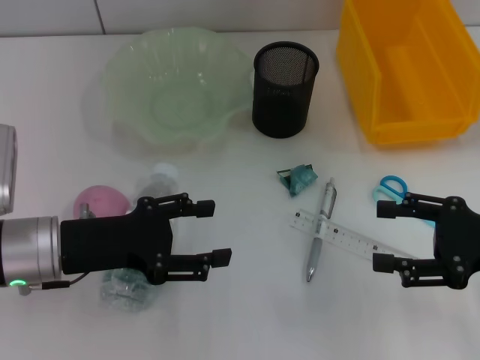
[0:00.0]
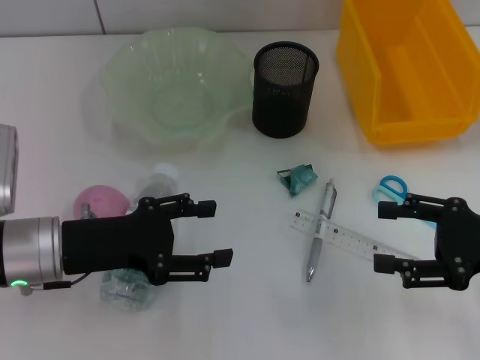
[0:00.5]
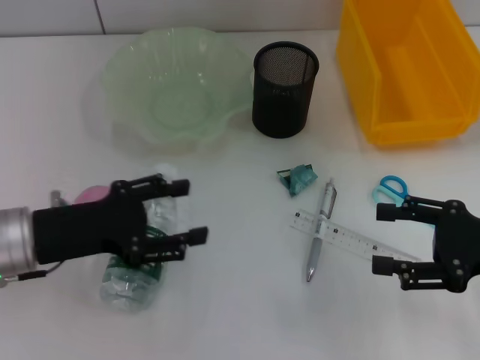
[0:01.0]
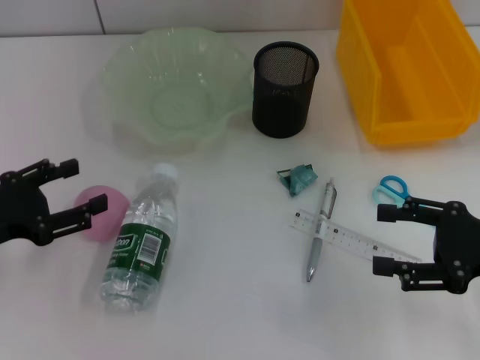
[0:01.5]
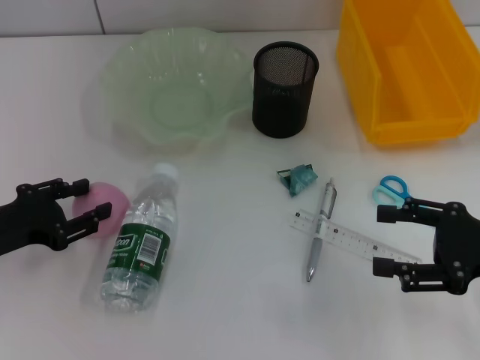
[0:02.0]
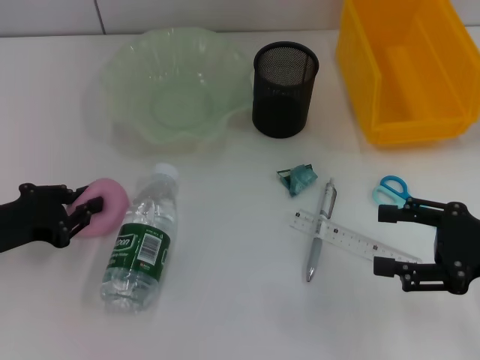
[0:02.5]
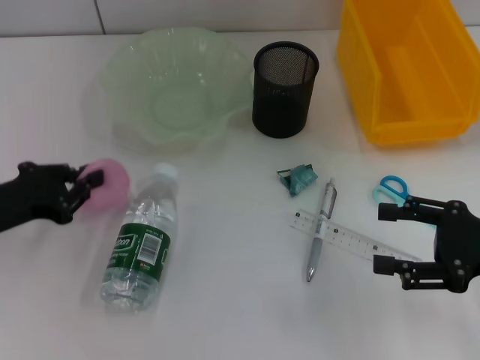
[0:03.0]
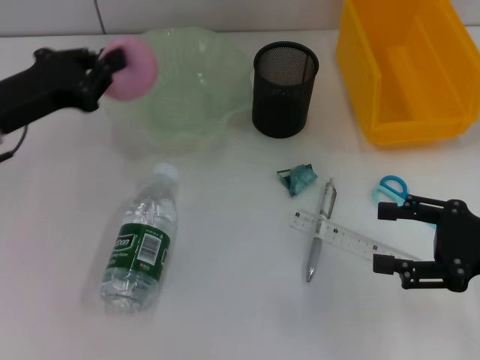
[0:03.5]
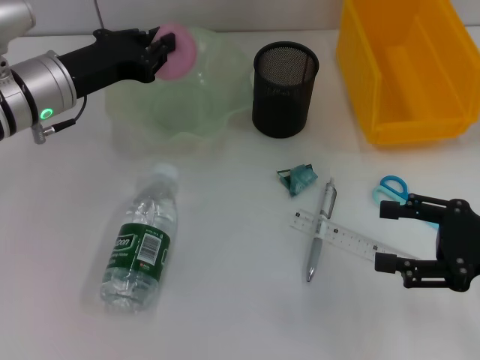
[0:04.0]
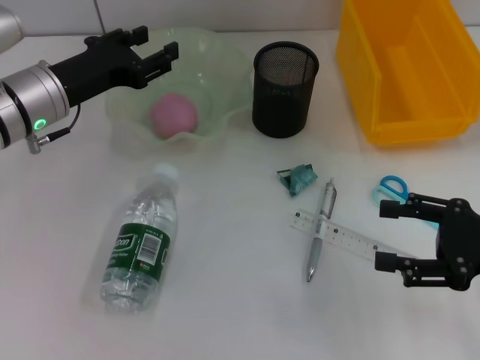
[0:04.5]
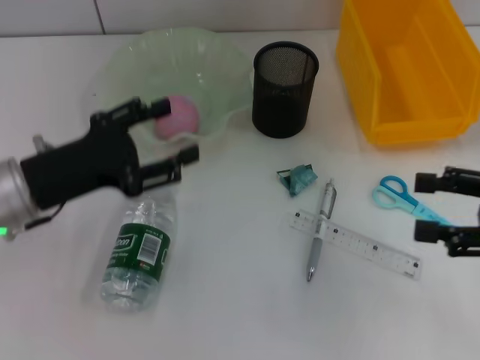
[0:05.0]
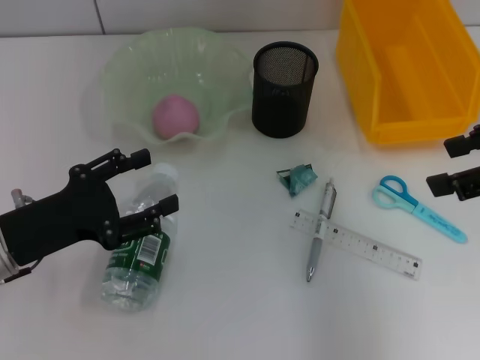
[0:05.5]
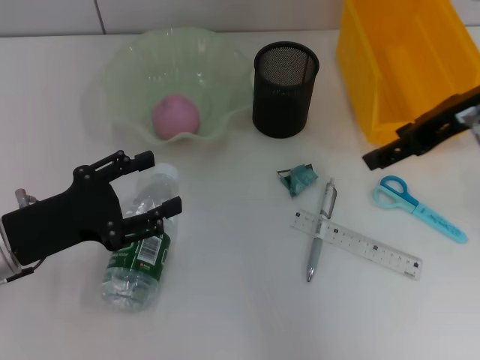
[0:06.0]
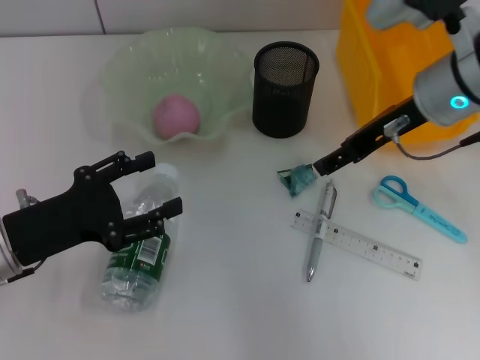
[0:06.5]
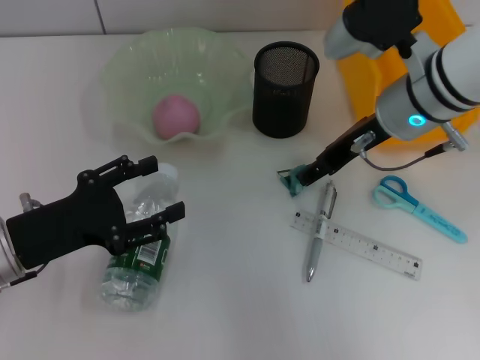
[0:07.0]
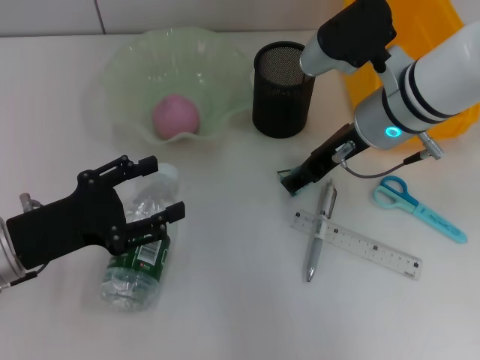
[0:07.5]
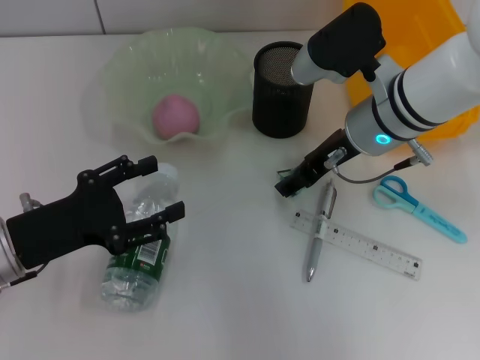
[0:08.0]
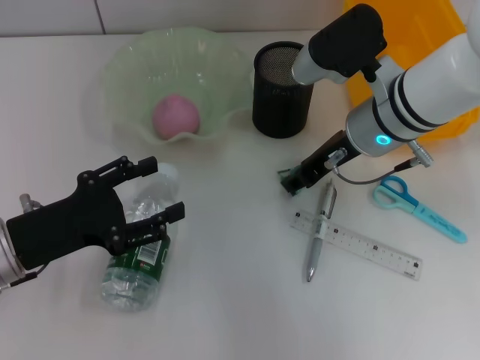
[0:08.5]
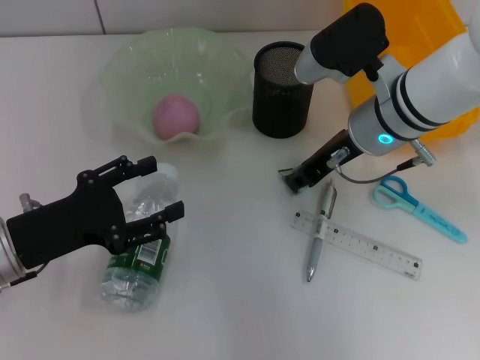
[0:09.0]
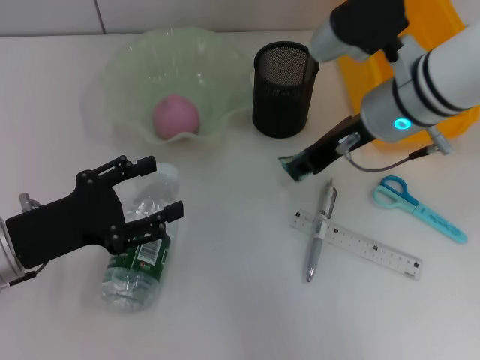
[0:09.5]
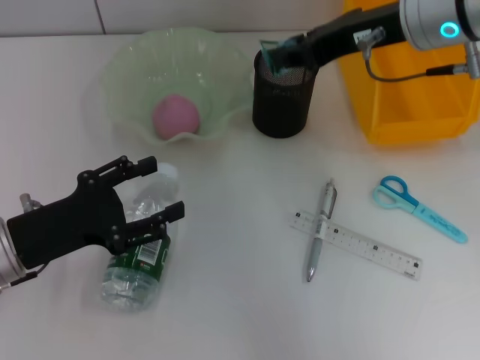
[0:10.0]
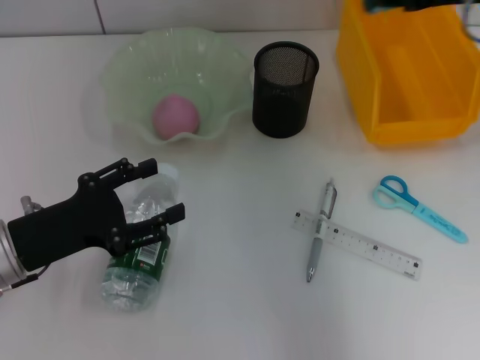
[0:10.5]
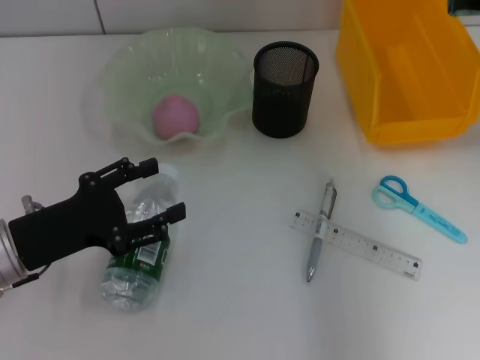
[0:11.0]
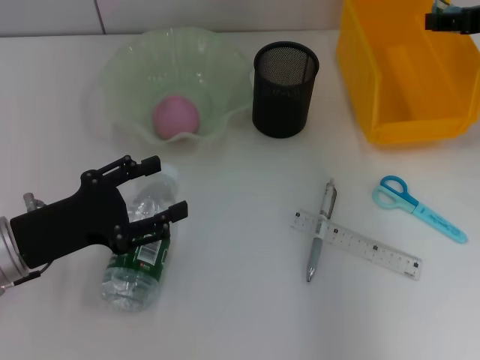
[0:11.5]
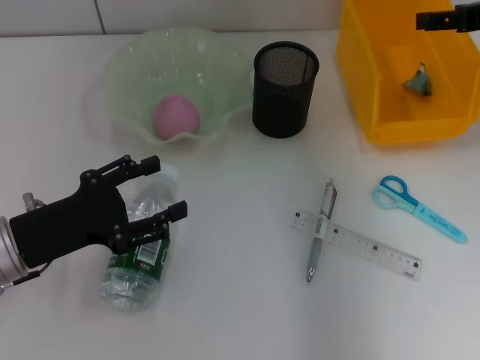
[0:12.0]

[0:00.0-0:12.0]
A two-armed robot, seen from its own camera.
Step, 0:00.0 to 0:02.5: Grab the peach with the left hand.
Step, 0:03.0 to 0:04.5: Place the peach into the fruit bowl with the left hand.
Step, 0:05.0 to 0:09.0: Grab the plastic with the right hand.
Step, 0:09.5 to 0:12.0: Place the plastic into the trash can with the right hand.
0:00.0 to 0:02.0: The left gripper goes about 10 cm to the left.
0:02.0 to 0:04.0: The left gripper moves forward, to the right and upward, approximately 15 cm, and closes its fingers.
0:04.0 to 0:06.0: The right gripper is displaced upward, forward and to the left by approximately 20 cm. Meanwhile the left gripper is displaced backward by roughly 15 cm, and opens its fingers.
0:06.0 to 0:08.0: The right gripper goes roughly 15 cm to the left and downward.
0:08.0 to 0:10.0: The right gripper moves upward, about 10 cm, and closes up.
0:10.0 to 0:12.0: The right gripper travels to the right by roughly 15 cm, and opens its fingers.

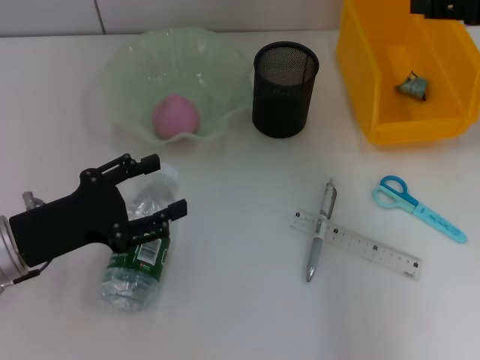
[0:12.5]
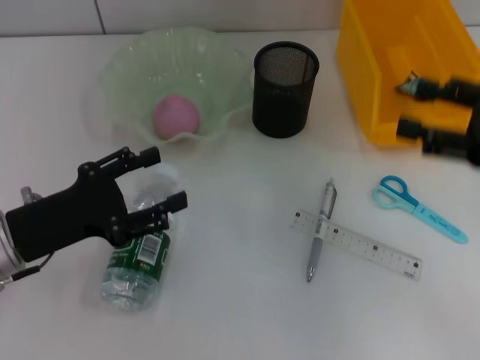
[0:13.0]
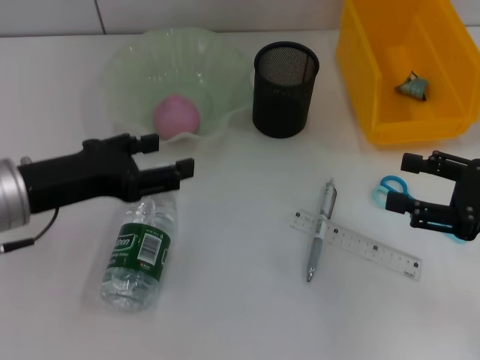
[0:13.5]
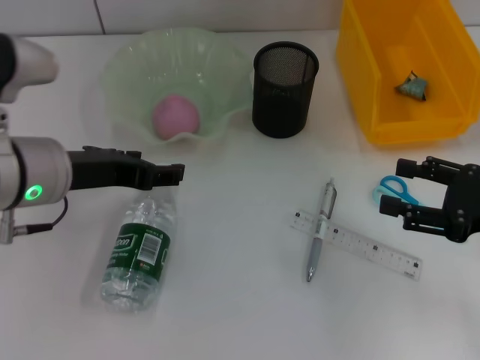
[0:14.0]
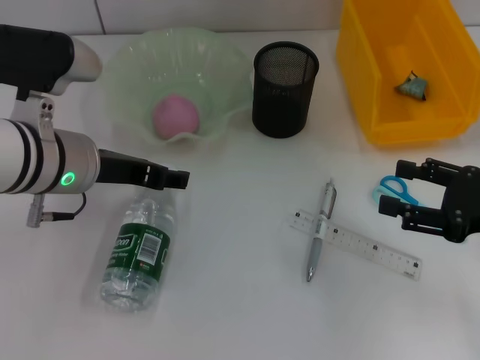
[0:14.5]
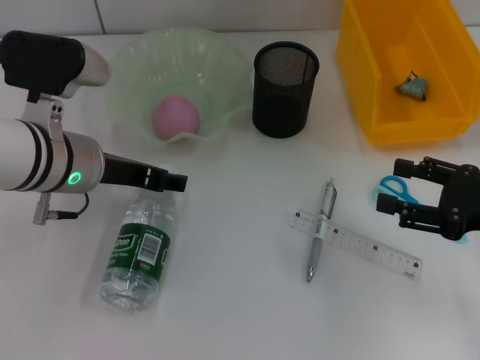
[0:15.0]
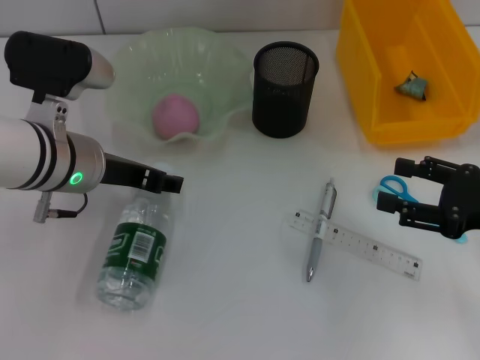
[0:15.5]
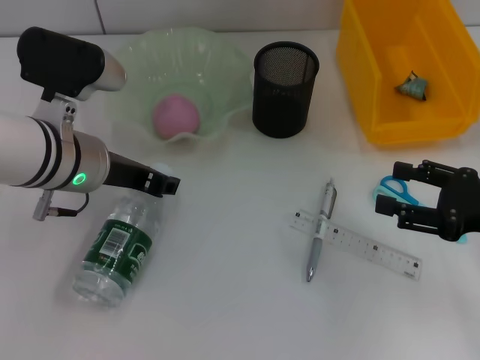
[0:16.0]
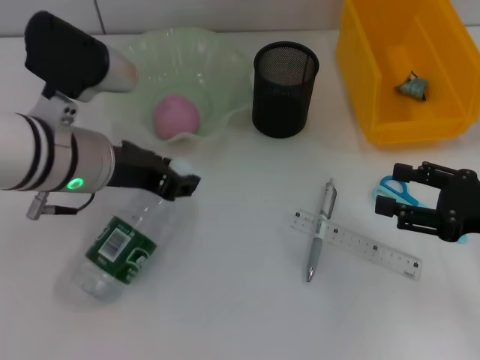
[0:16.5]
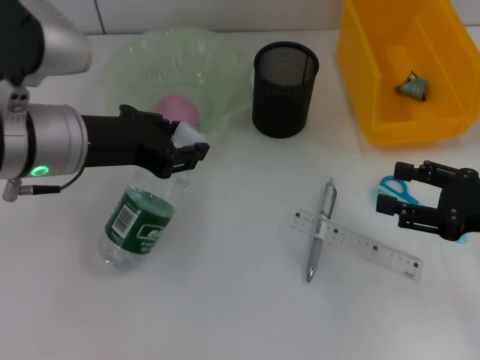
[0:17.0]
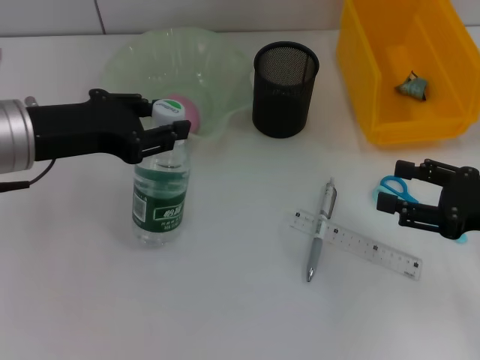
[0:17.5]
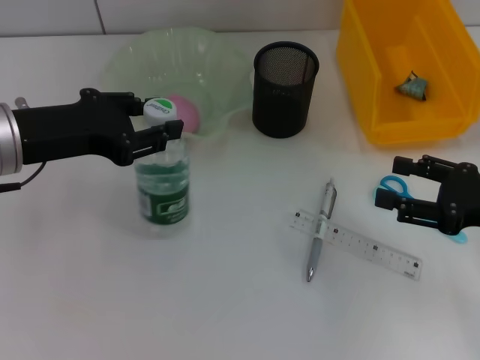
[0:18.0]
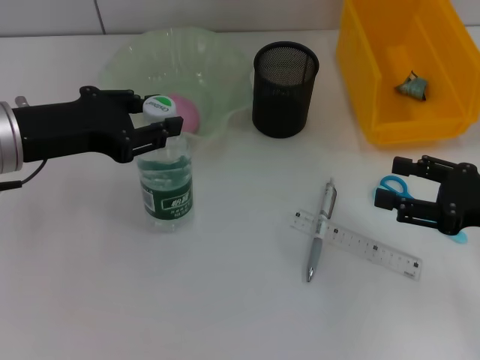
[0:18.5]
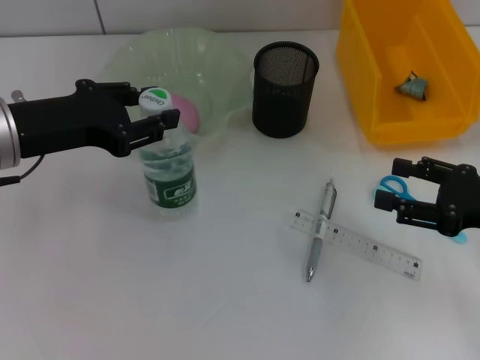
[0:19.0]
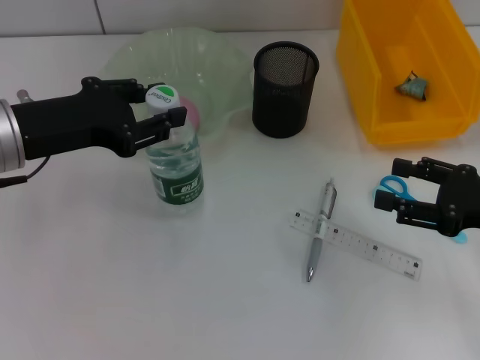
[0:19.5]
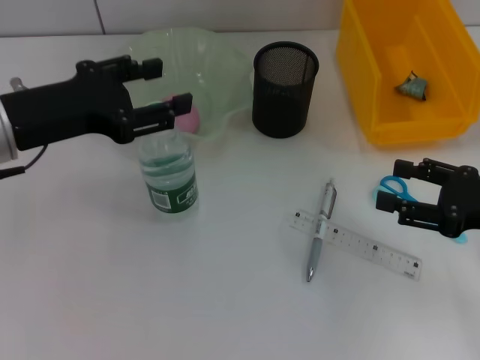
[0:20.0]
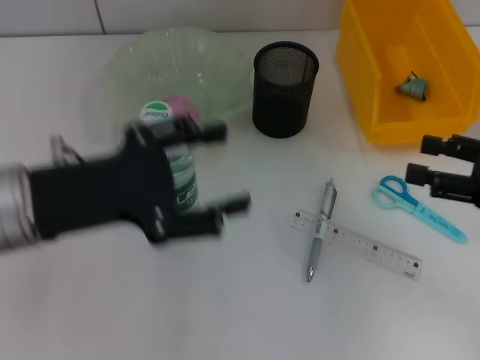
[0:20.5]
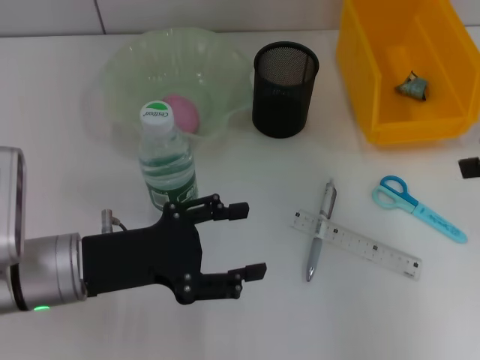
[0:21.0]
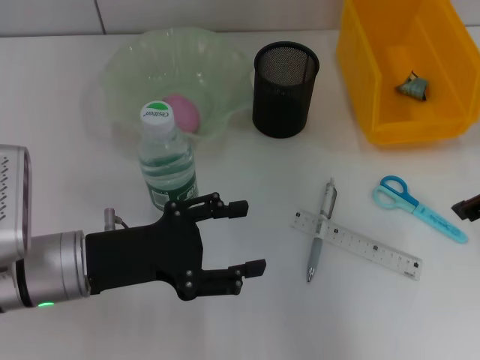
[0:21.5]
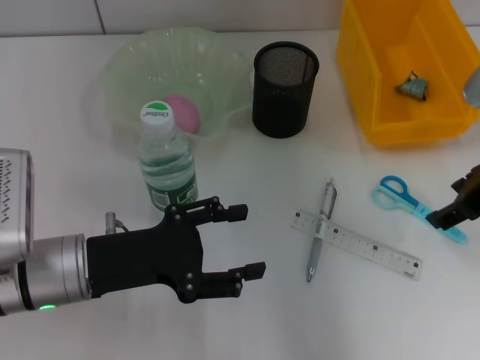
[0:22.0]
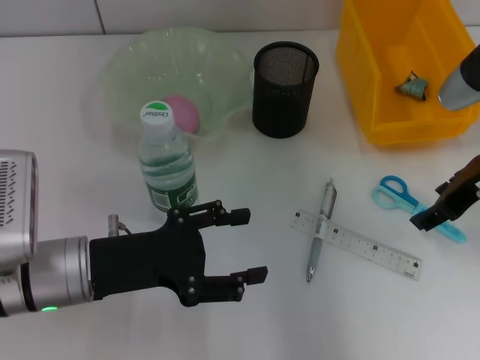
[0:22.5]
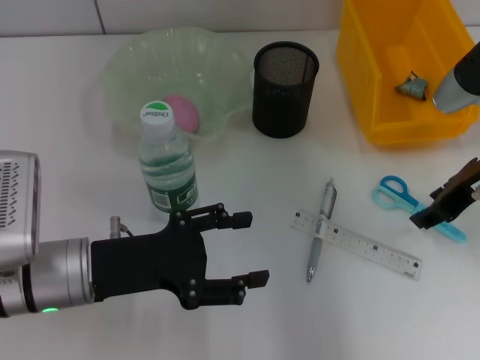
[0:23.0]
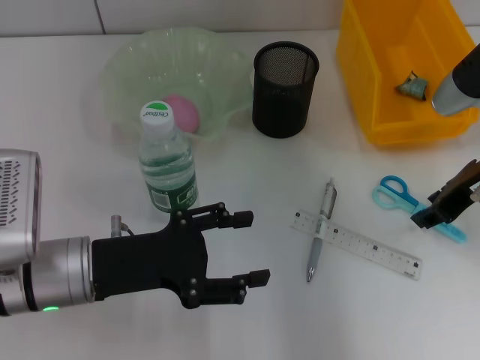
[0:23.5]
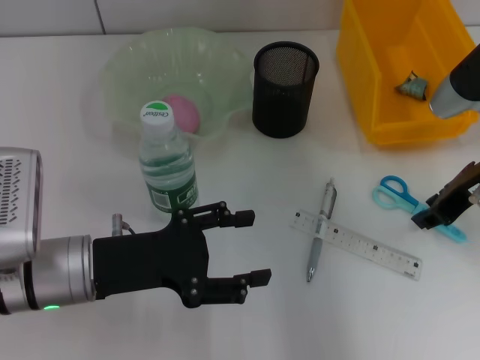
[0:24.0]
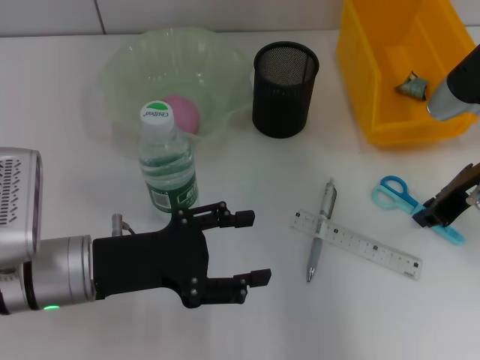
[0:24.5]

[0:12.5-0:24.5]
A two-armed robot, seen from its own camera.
Step, 0:12.5 to 0:15.5: Grab the water bottle with the left hand.
Step, 0:16.0 to 0:19.5: Place the water bottle on the table with the left hand.
0:12.5 to 0:14.5: The left gripper goes about 15 cm to the right, forward and upward; the right gripper is displaced downward and backward by some 20 cm.
0:14.5 to 0:16.5: The left gripper closes its fingers.
0:16.5 to 0:18.5: The left gripper shifts some 5 cm to the left.
0:18.5 to 0:20.5: The left gripper shifts some 5 cm backward, and opens.
0:20.5 to 0:22.5: The left gripper travels downward by roughly 10 cm. The right gripper heads to the left and forward, covering some 10 cm, and goes upward and returns, approximately 10 cm each way.
0:22.5 to 0:24.5: The right gripper closes.

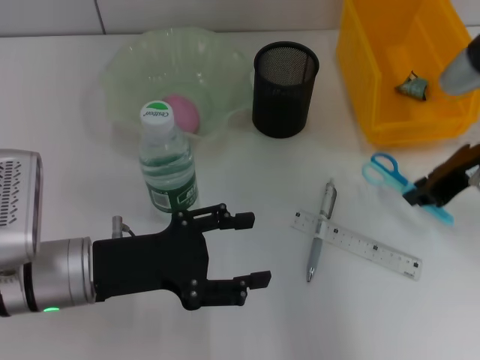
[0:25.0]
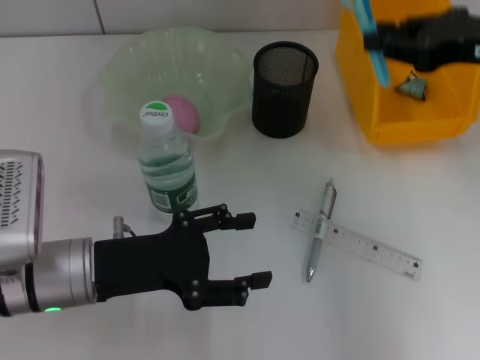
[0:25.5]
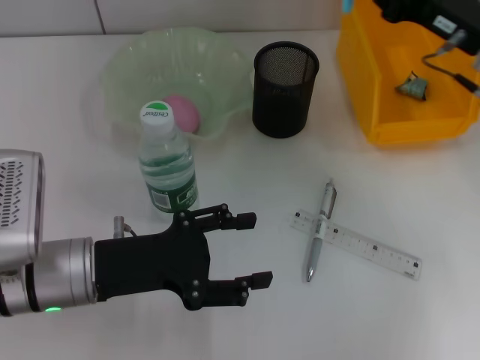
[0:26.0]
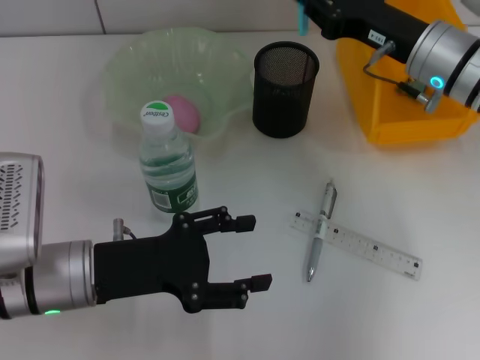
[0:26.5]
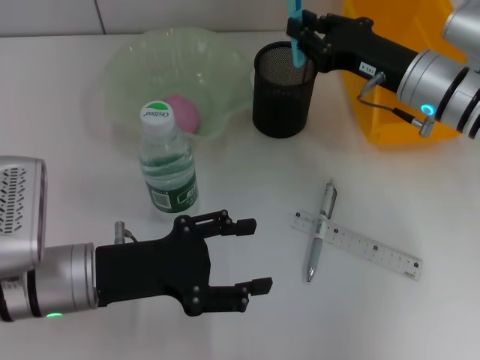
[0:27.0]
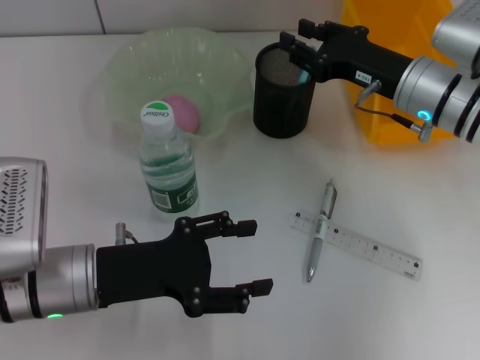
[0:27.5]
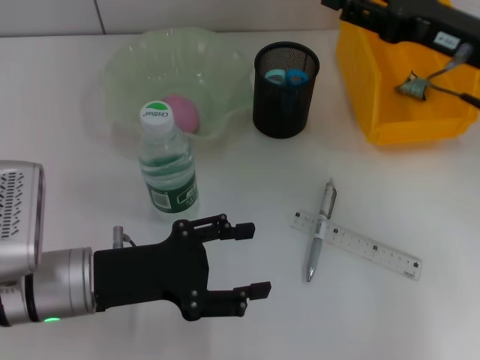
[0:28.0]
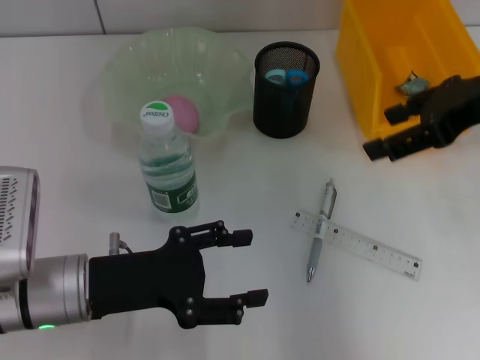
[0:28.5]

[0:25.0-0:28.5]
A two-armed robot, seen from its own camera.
Step, 0:25.0 to 0:27.5: Place the blue scissors into the pen holder with the right hand.
0:25.0 to 0:27.0: The right gripper is displaced downward by approximately 5 cm.
0:27.0 to 0:28.5: The right gripper heads upward and to the right, covering some 15 cm, and opens its fingers.
